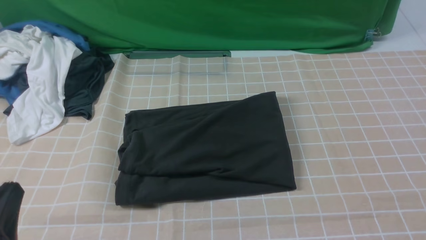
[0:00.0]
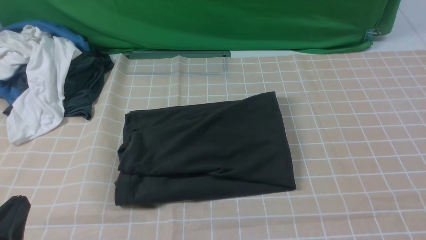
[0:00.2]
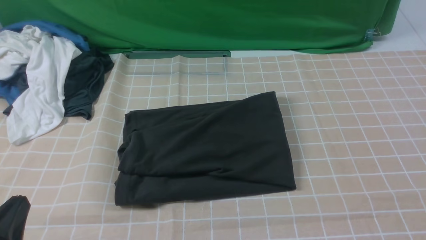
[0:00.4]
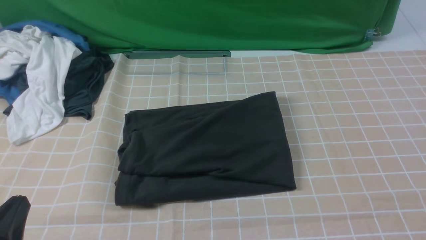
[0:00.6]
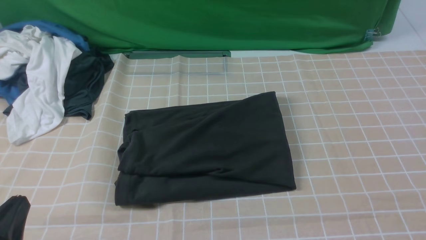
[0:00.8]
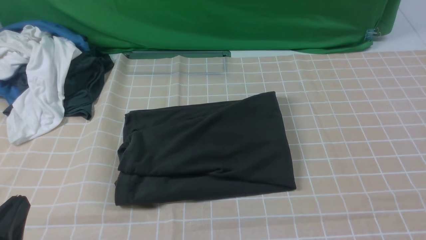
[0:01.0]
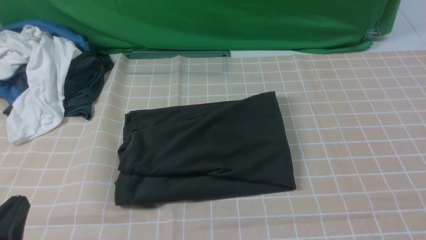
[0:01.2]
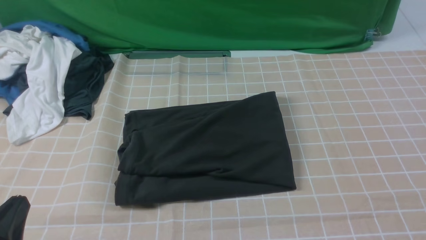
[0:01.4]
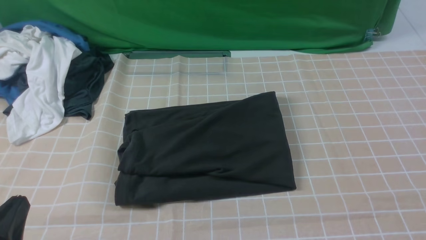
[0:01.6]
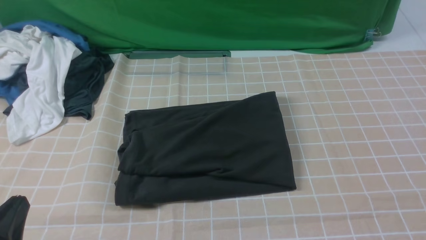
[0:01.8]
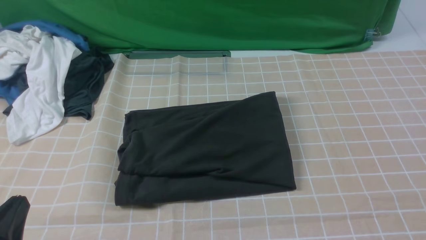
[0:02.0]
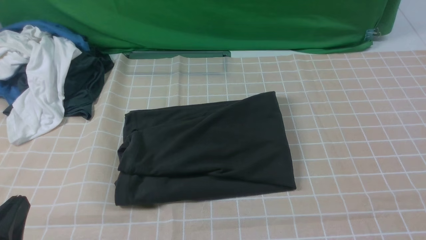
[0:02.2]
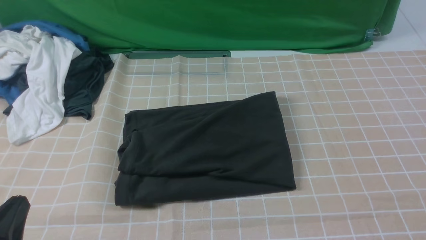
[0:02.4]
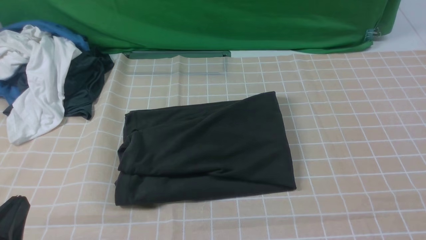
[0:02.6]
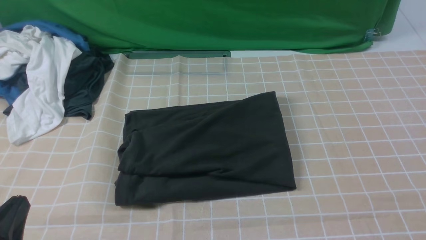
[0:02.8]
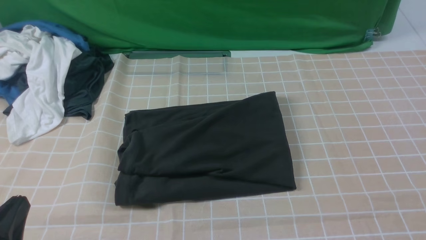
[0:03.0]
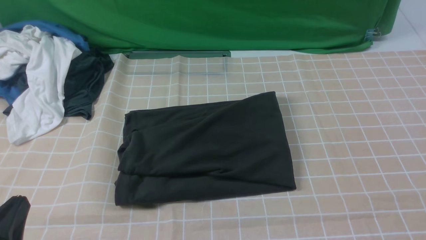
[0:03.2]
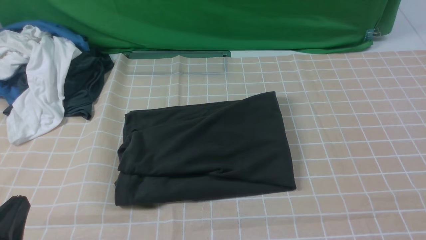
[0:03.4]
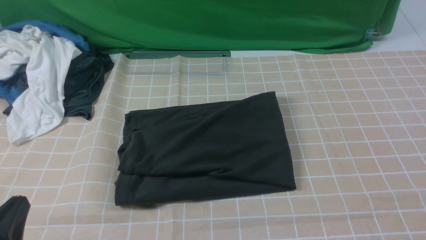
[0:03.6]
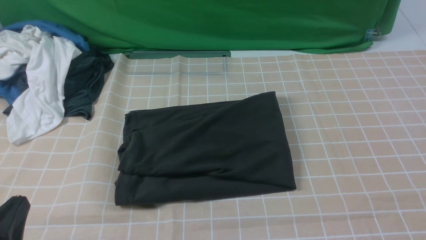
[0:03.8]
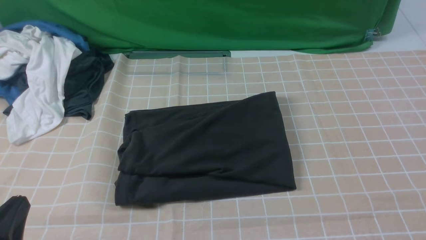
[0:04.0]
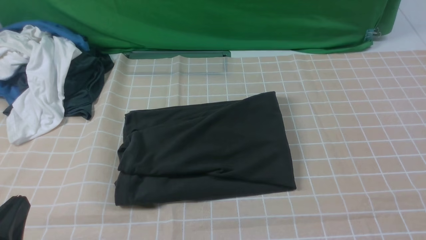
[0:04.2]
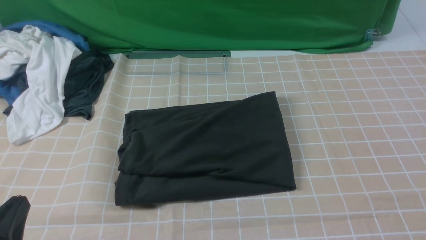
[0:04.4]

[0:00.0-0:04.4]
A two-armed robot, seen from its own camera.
0:03.0 to 0:04.4: Neither gripper changes place.

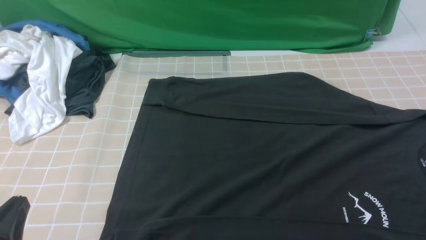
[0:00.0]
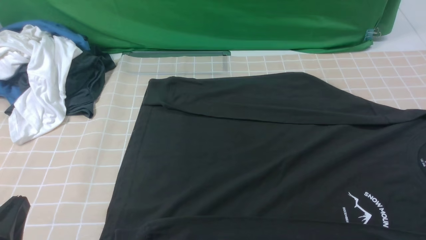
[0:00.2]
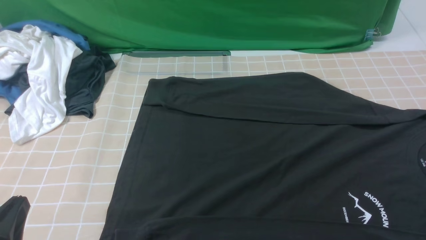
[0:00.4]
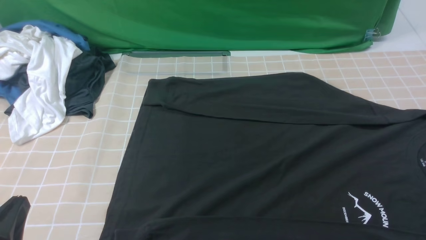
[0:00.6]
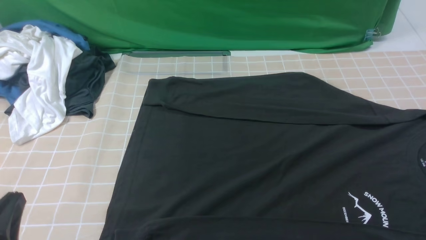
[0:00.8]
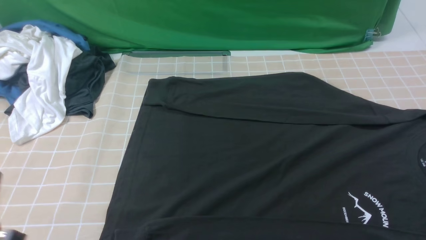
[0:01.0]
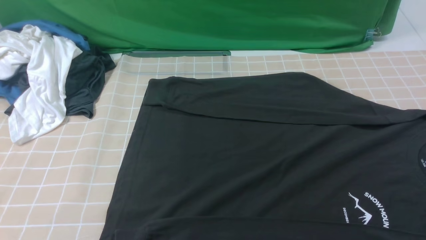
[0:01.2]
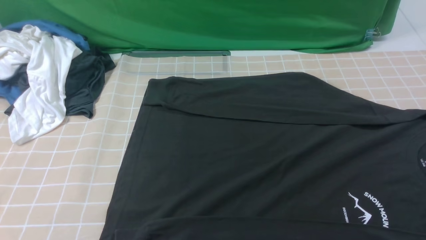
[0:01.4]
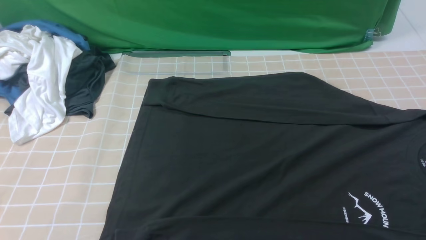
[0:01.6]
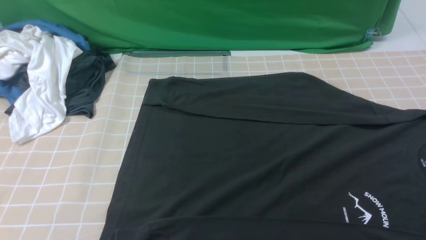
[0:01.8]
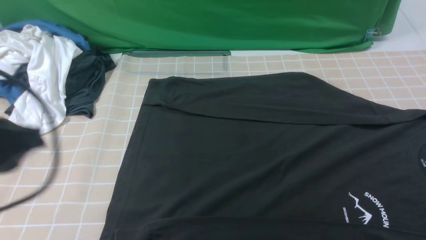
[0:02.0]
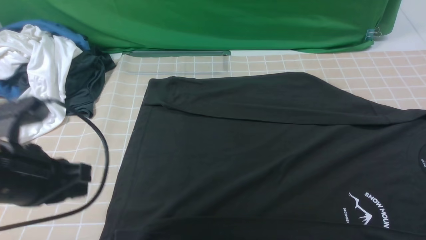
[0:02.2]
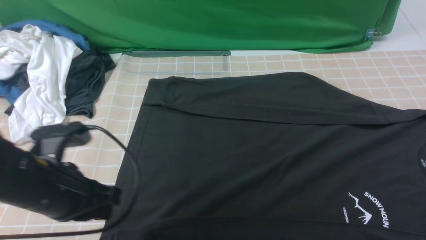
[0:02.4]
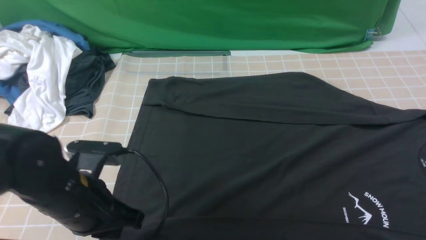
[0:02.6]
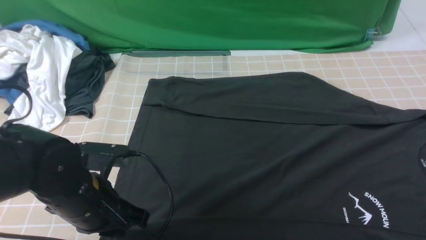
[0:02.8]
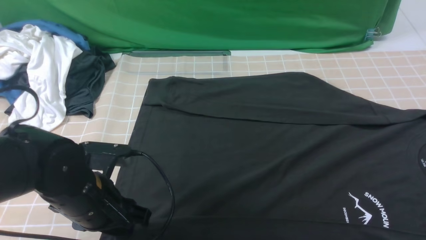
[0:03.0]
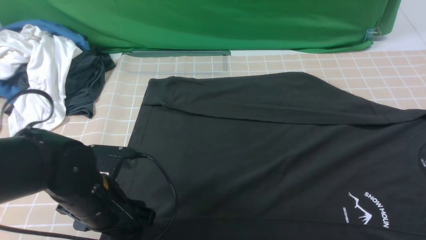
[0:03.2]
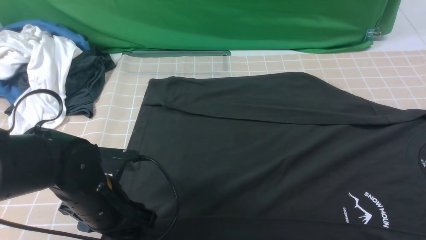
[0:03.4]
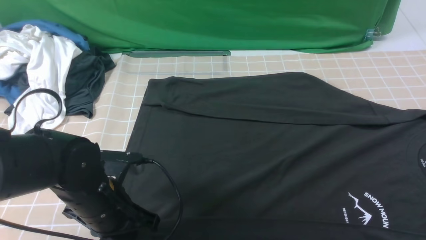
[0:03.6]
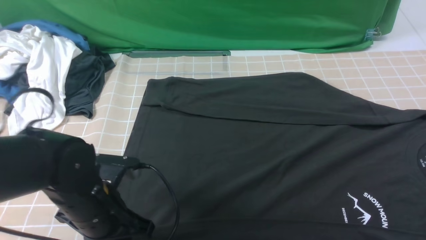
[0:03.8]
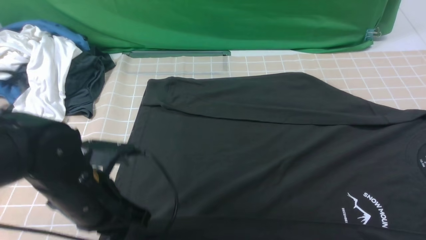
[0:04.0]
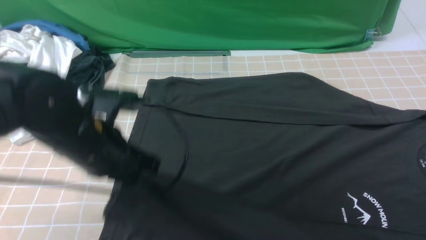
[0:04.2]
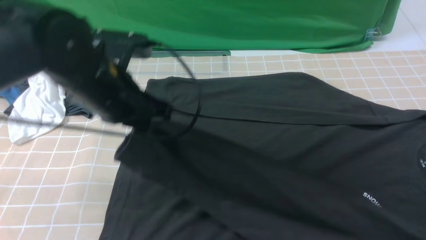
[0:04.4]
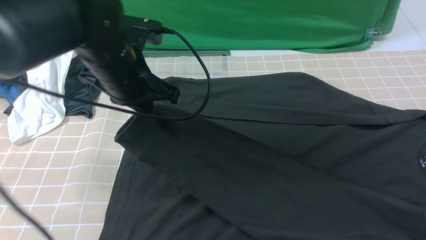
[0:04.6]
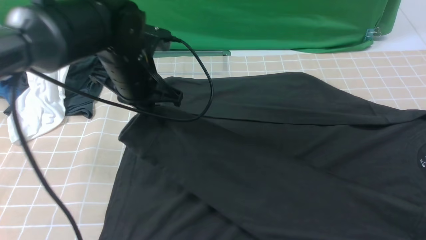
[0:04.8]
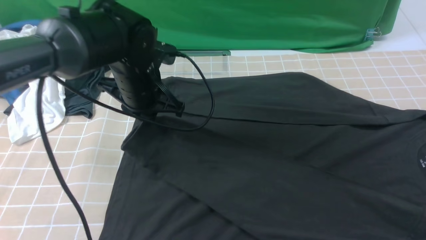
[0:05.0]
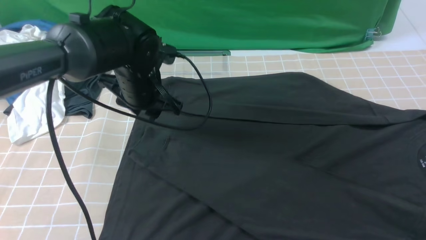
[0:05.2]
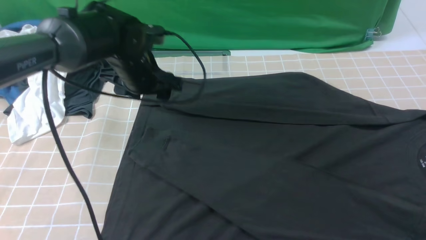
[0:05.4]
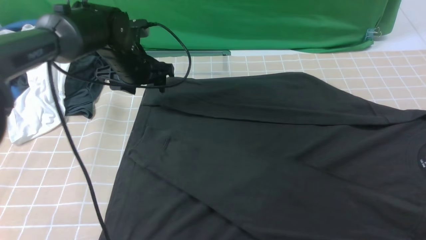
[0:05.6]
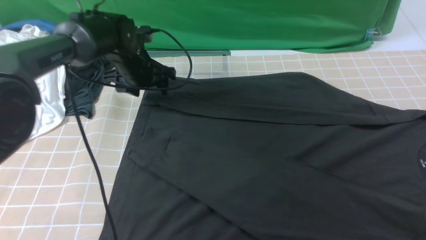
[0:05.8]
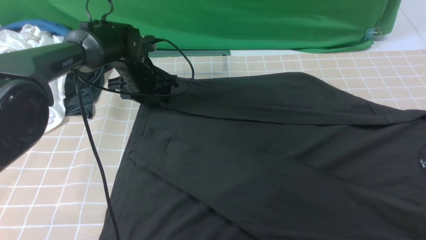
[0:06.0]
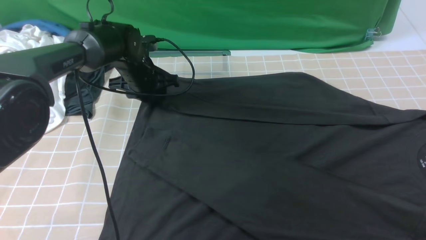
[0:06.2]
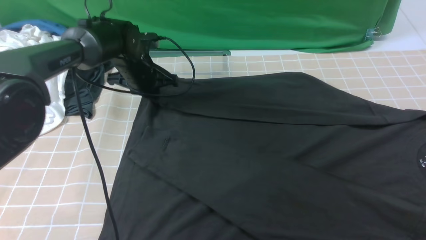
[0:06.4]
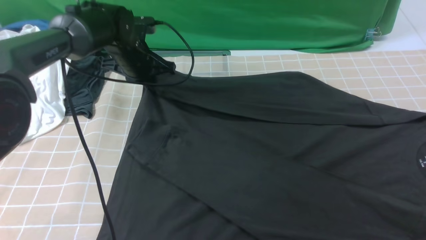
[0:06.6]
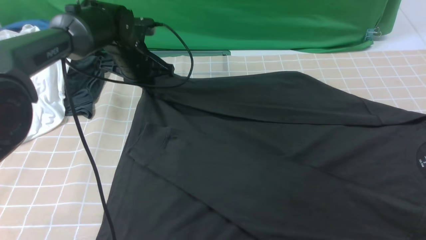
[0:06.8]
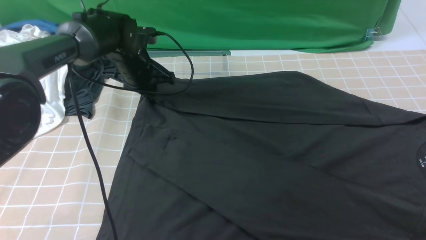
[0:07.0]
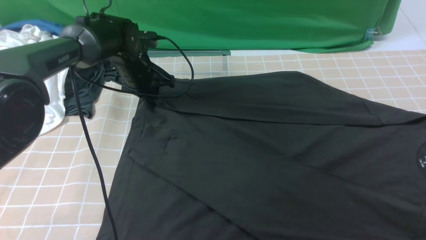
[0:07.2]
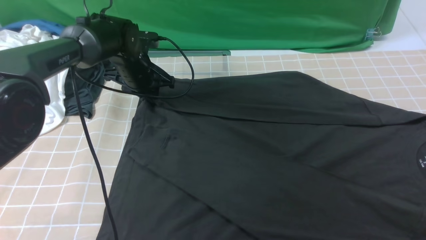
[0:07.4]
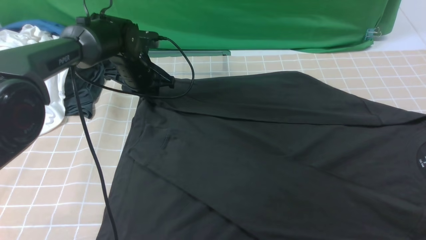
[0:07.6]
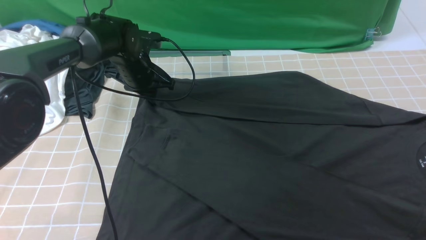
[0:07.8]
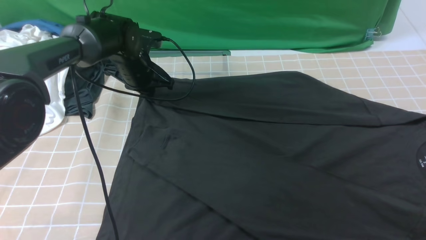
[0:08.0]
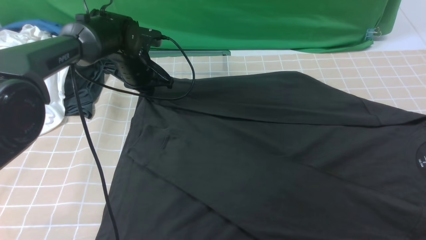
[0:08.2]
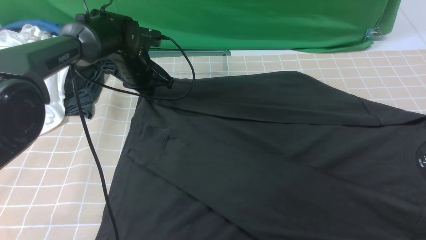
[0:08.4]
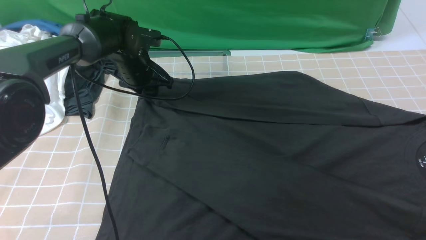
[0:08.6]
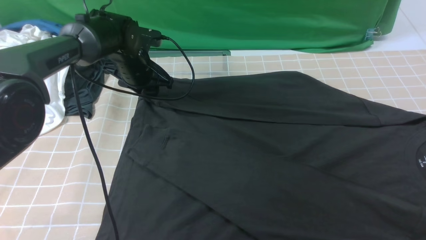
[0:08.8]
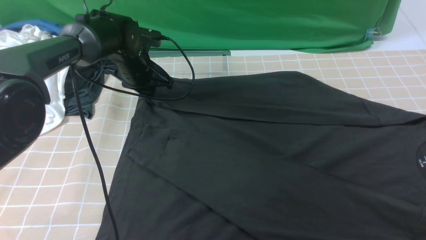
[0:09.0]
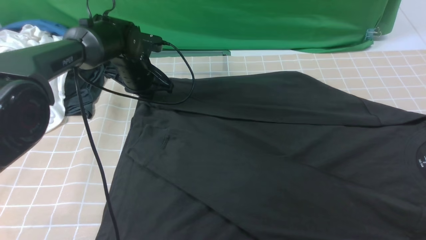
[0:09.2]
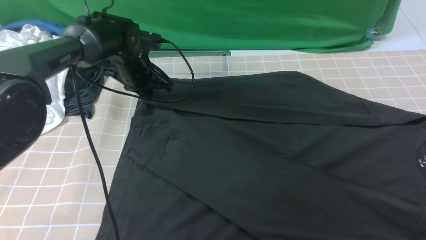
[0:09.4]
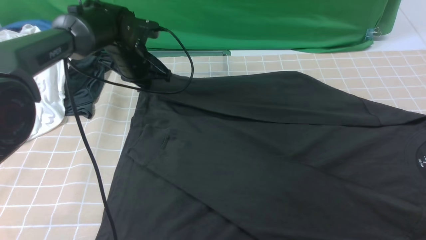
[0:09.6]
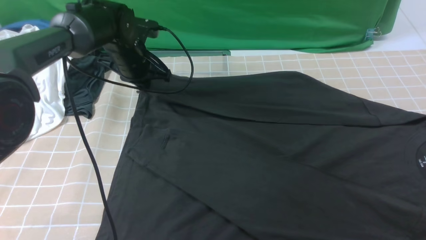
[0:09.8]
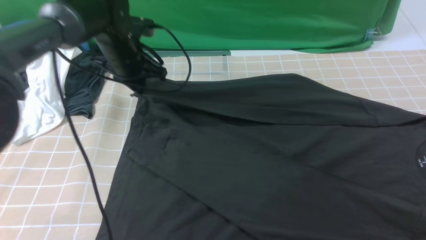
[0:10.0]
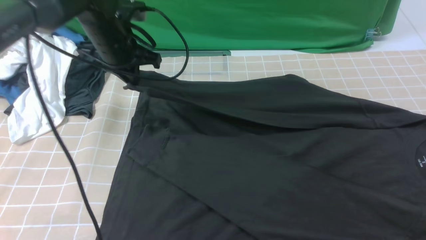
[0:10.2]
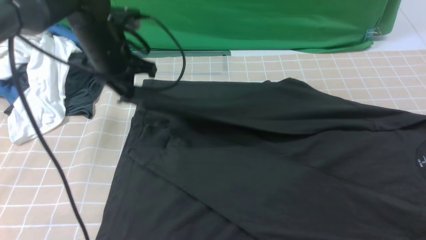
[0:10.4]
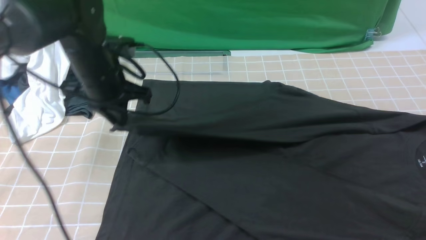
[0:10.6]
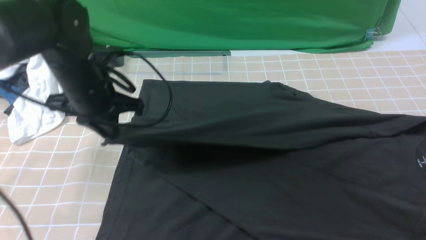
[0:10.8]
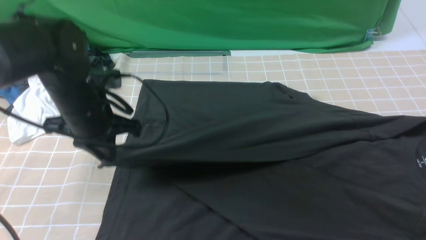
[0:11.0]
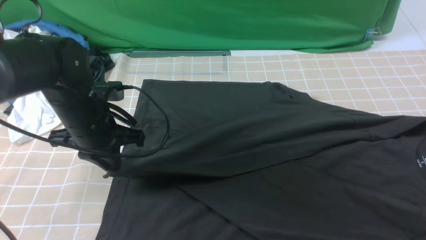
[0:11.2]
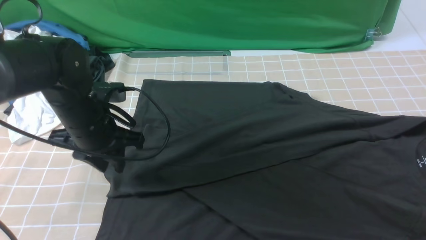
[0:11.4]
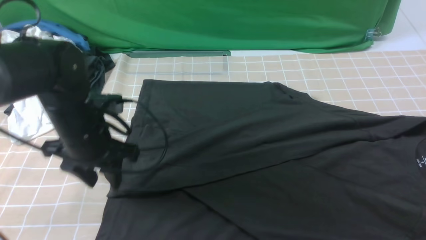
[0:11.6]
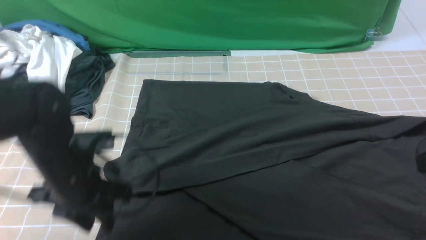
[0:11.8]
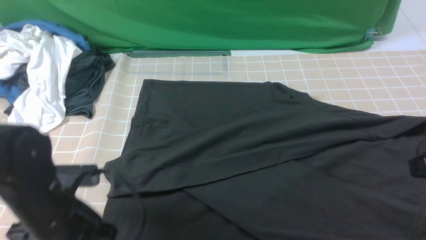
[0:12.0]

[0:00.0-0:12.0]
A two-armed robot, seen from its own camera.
Step, 0:00.0 to 0:03.6: use the left arm to clamp the cuff closest to it.
Step, 0:03.8 to 0:05.2: use the left arm to drag and place the cuff at the centered position on the left edge of the fabric.
Step, 0:05.4 to 0:09.4: use the left arm to clamp the cuff farthest from it.
Step, 0:09.6 to 0:11.4: use the left arm to drag and drop the cuff onto the cuff closest to the left arm.
0:00.0 to 0:01.6: The left gripper moves upward, roughly 15 cm.
0:01.6 to 0:03.0: The left gripper moves downward, forward and to the right, approximately 25 cm, and opens.
0:03.0 to 0:04.4: The left gripper moves upward and forward, approximately 15 cm, and closes up.
0:04.4 to 0:06.0: The left gripper shifts some 20 cm forward and downward, and opens its fingers.
0:06.0 to 0:07.6: The left gripper closes its fingers.
0:07.6 to 0:09.0: Both grippers stay put.
0:09.0 to 0:10.4: The left gripper moves upward and backward, some 10 cm.
0:10.4 to 0:12.0: The left gripper goes roughly 20 cm backward and downward, and opens, while the right gripper moves forward, roughly 5 cm.
